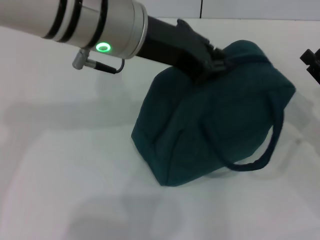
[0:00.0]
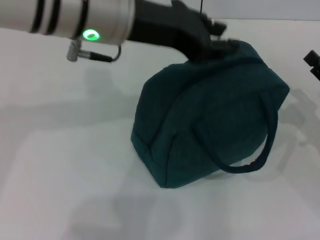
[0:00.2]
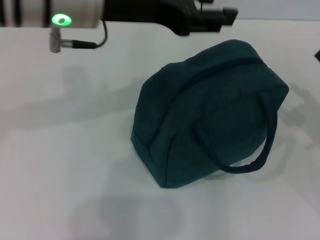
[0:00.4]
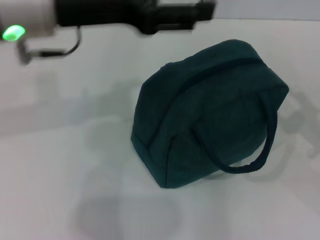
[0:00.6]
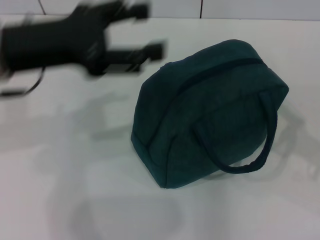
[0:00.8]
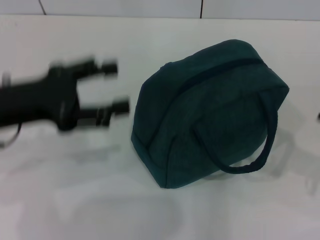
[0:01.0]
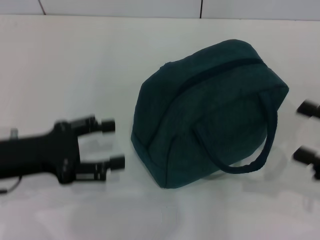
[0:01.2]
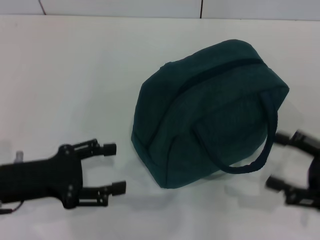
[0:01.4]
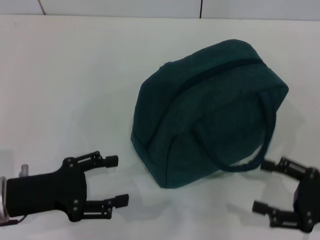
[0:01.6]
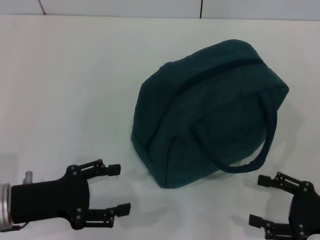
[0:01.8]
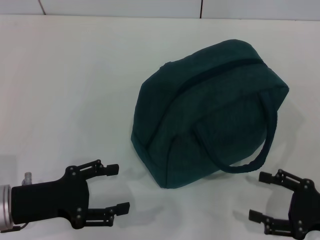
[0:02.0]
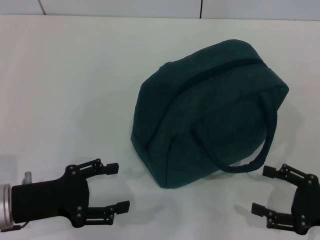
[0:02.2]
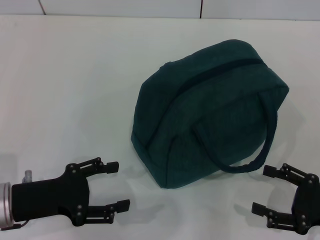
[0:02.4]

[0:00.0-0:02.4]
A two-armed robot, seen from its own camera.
0:00.0 to 0:01.2: The left gripper heads to the left, downward and backward, covering approximately 25 cm, and opens. Meanwhile the right gripper moves backward, approximately 5 cm, and opens up.
0:01.2 to 0:02.4: Both grippers move downward, roughly 5 cm.
